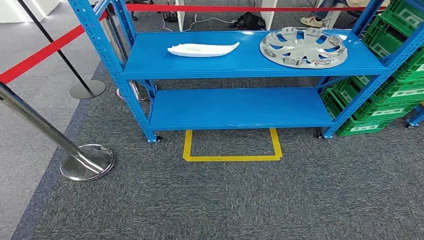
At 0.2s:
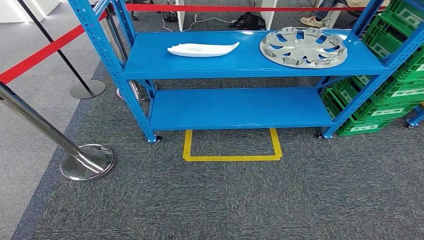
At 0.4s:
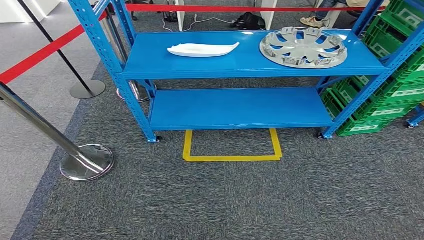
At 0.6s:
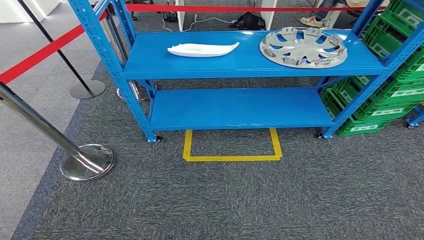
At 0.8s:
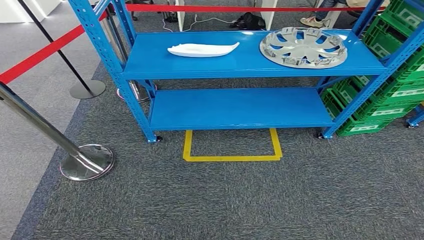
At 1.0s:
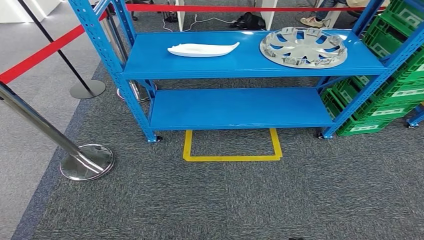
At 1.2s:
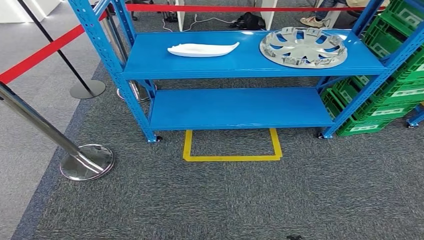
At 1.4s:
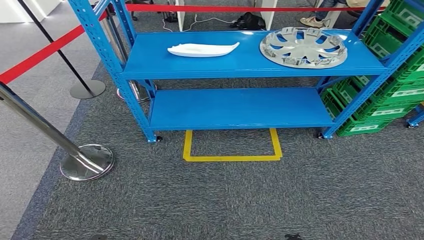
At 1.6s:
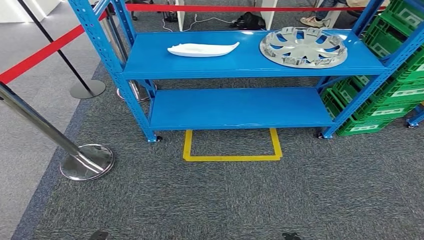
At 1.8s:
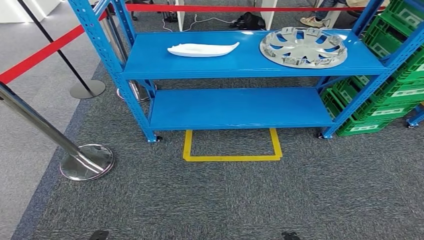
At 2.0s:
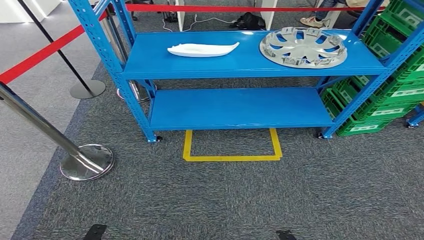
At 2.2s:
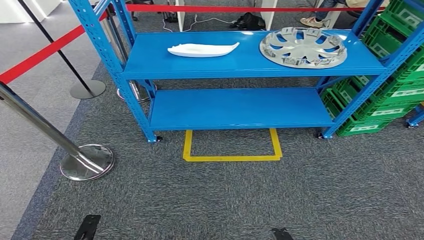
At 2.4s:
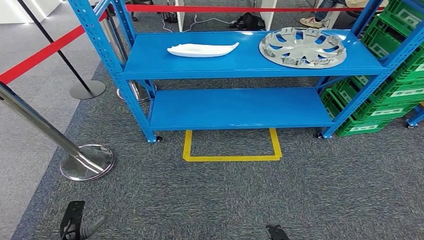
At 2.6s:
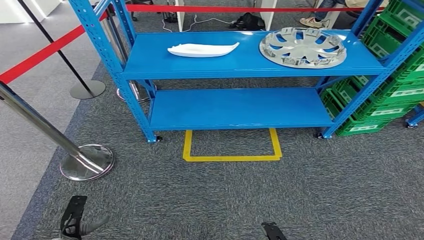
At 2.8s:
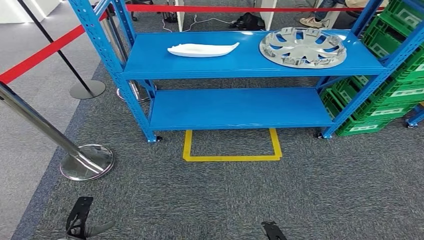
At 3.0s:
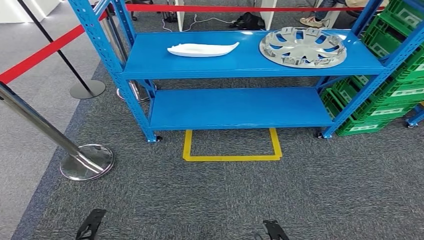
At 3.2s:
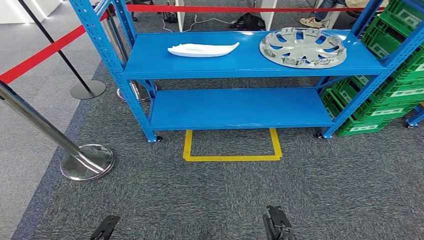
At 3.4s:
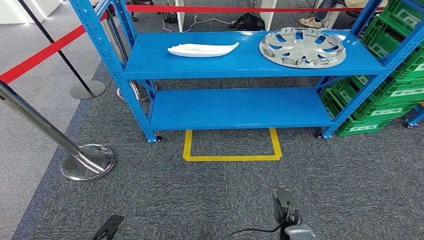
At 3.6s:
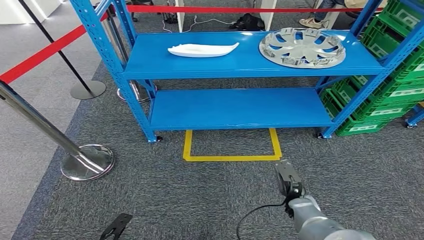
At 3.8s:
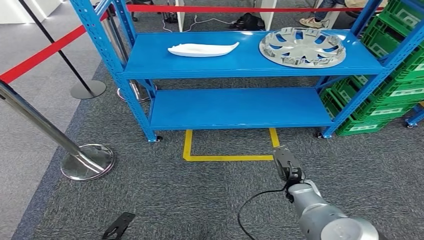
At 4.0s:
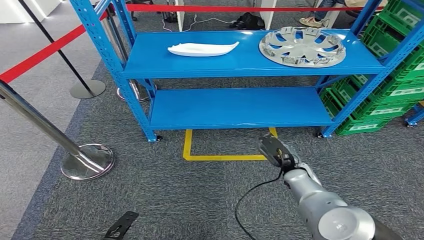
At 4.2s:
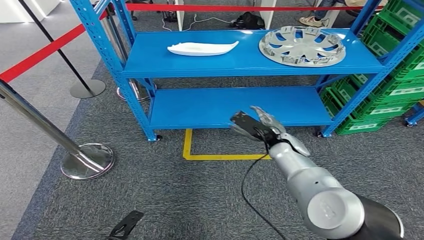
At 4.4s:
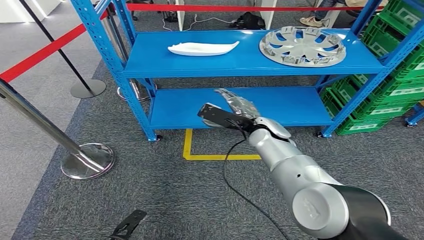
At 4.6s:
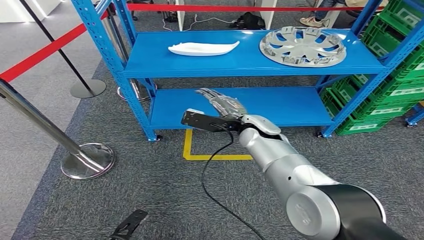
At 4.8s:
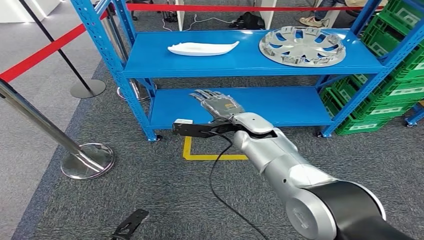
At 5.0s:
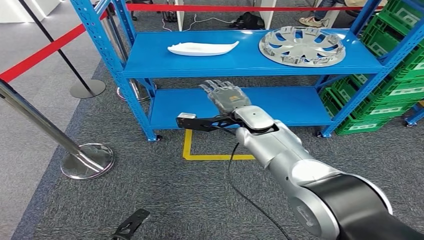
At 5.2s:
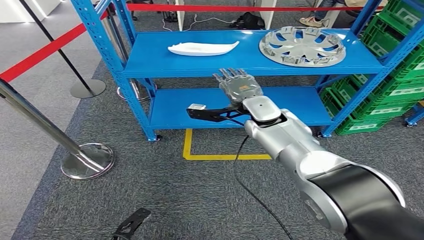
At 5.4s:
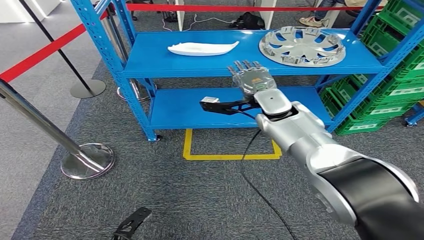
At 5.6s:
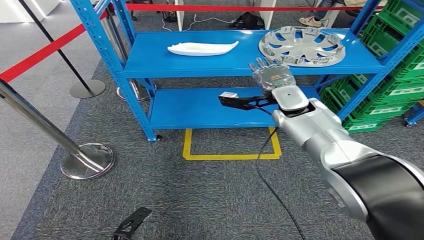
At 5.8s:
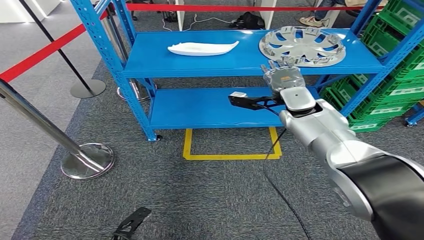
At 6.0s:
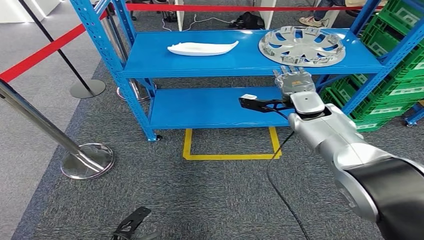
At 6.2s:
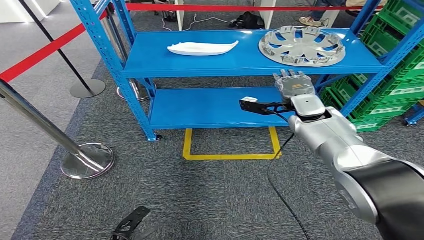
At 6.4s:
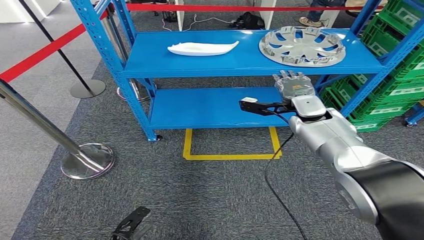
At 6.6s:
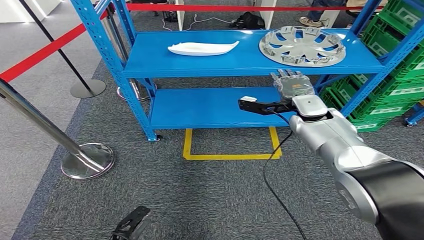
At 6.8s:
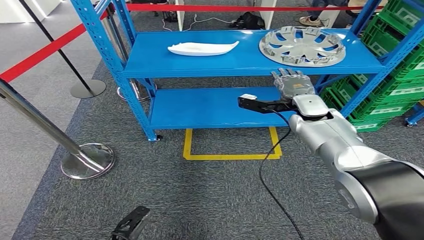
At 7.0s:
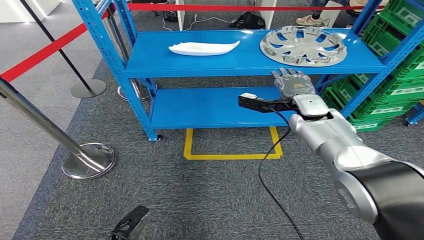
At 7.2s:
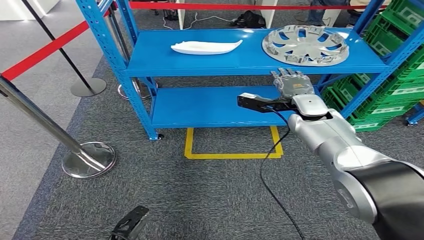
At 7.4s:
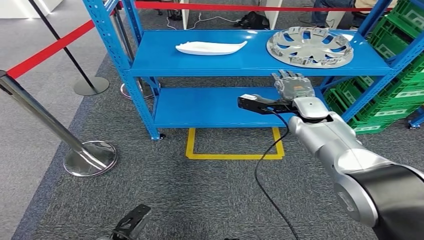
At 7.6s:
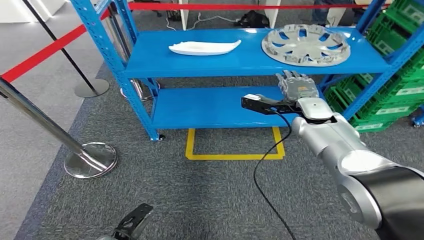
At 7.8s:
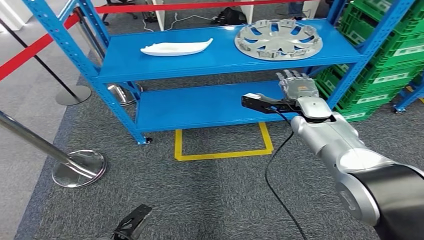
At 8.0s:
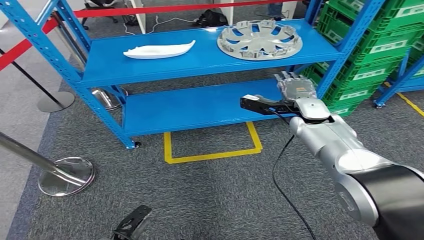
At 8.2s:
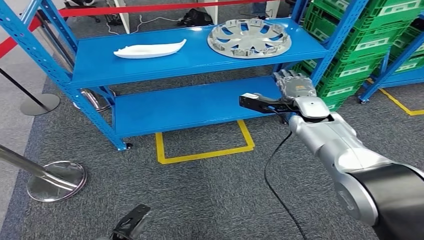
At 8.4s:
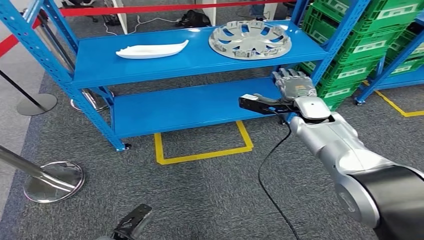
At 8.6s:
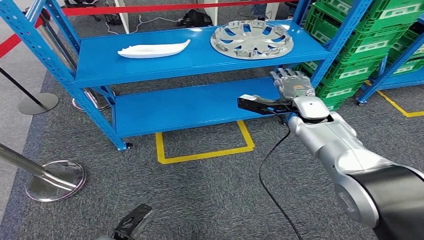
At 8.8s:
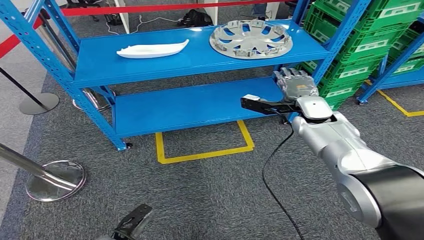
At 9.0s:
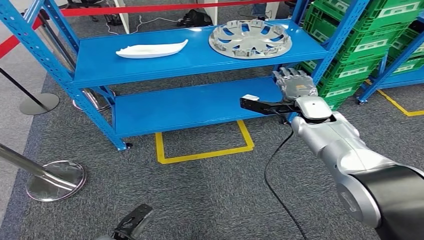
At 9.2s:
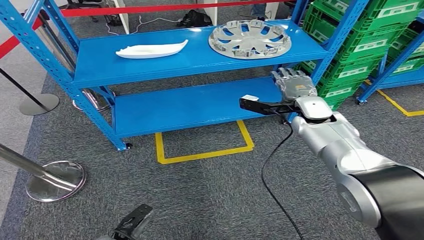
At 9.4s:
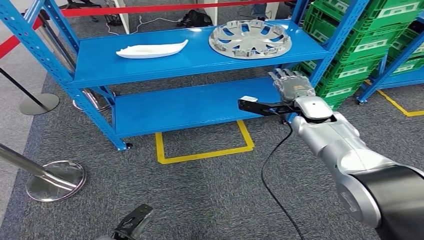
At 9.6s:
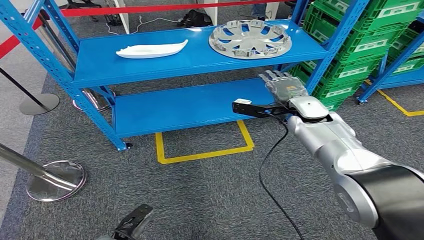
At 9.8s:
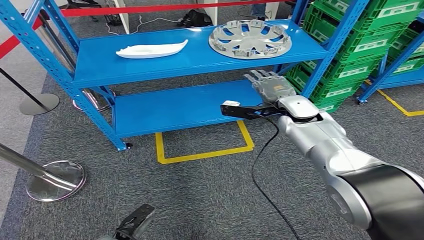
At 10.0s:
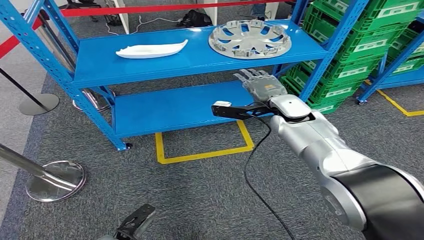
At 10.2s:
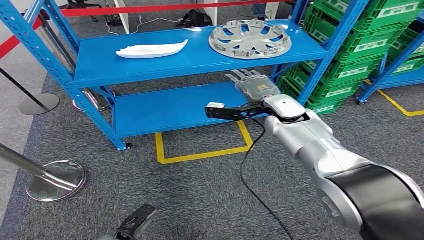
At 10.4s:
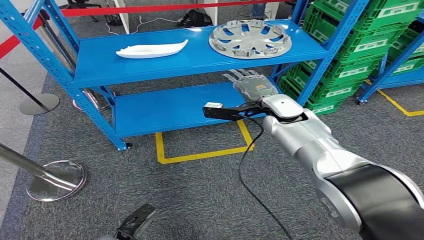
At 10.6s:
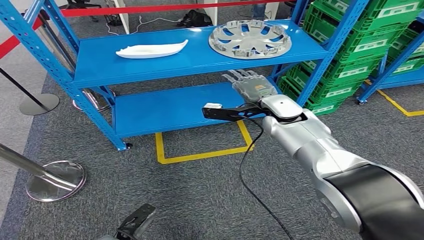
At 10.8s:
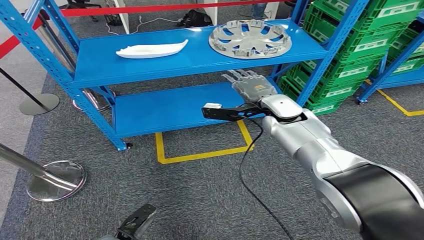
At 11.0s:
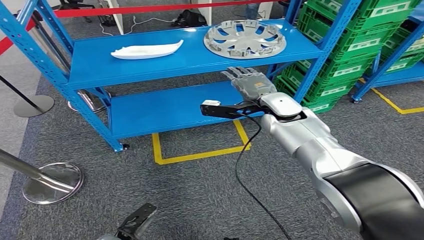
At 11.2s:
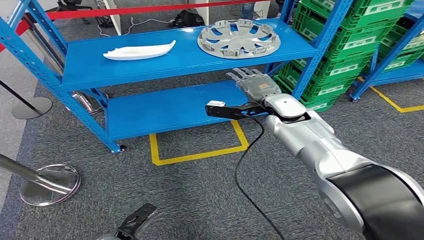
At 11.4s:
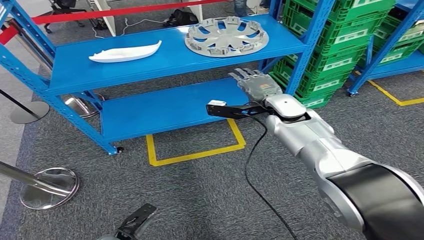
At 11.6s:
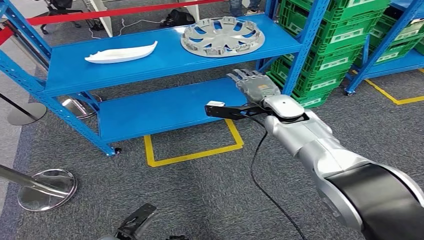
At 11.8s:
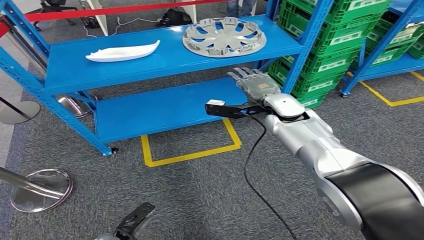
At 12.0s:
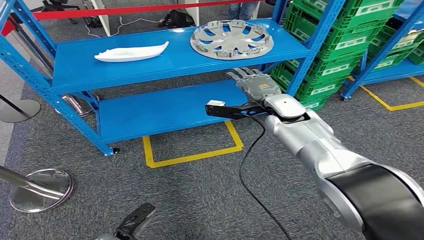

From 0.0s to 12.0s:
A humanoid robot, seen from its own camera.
From 1.6s to 3.0s: The left hand shifts approximately 5 cm forward, while the right hand travels to the left by approximately 5 cm.
From 3.0s to 4.4s: The right hand moves forward and upward, about 40 cm; the left hand travels to the right by roughly 5 cm.
From 4.4s to 6.0s: The right hand shifts approximately 10 cm to the right and upward.
From 9.0s to 10.4s: The right hand heads to the left, covering some 5 cm.

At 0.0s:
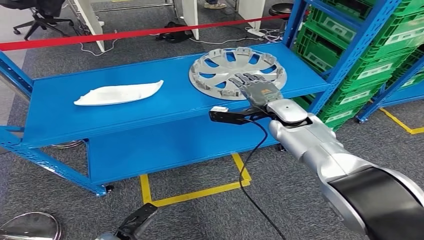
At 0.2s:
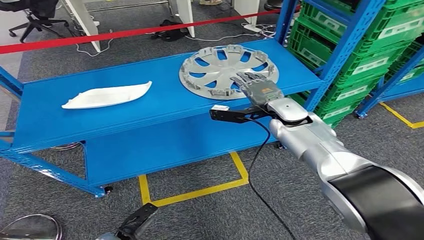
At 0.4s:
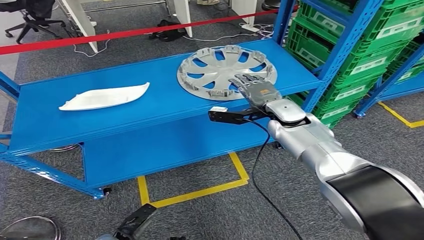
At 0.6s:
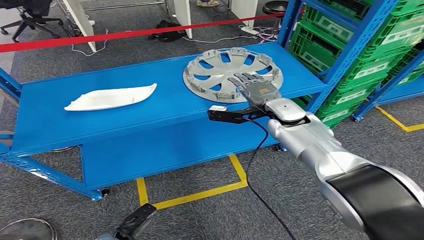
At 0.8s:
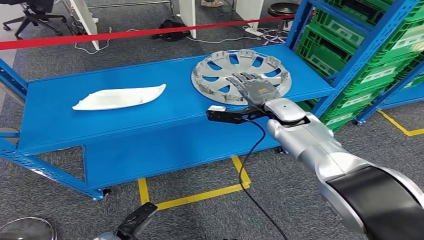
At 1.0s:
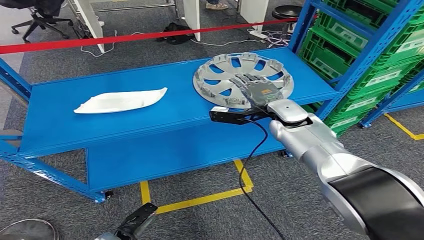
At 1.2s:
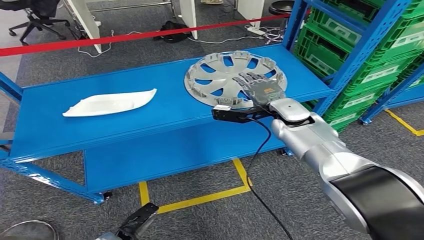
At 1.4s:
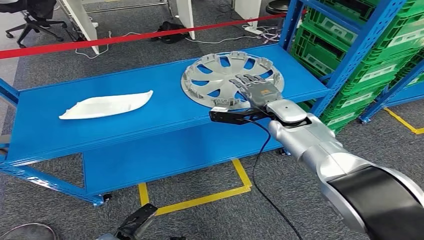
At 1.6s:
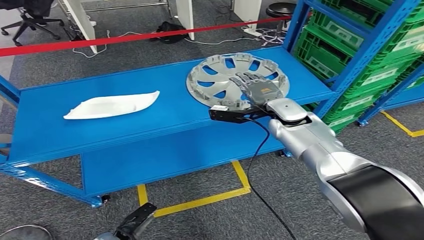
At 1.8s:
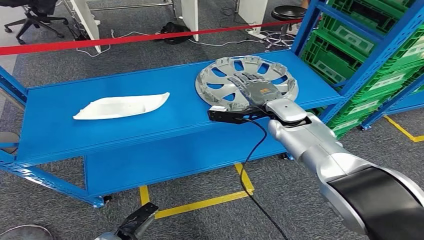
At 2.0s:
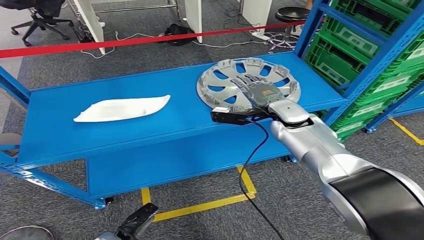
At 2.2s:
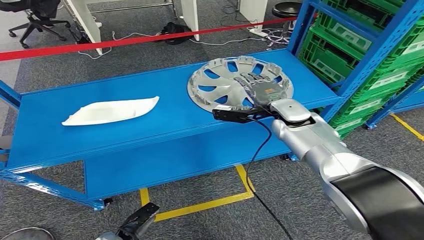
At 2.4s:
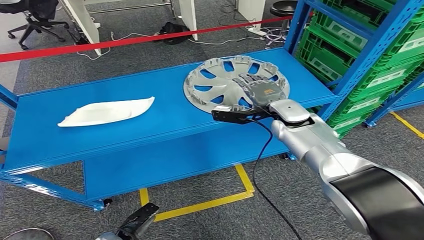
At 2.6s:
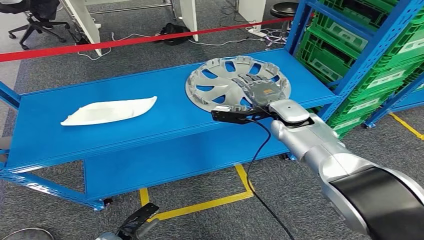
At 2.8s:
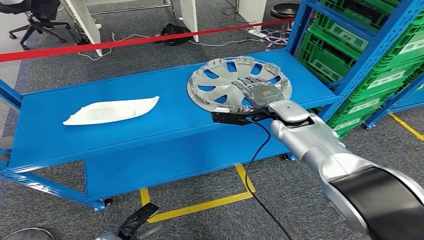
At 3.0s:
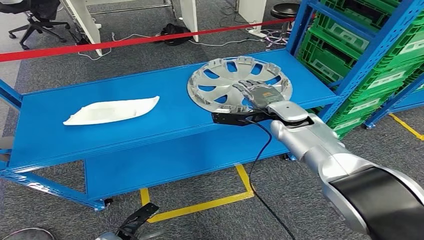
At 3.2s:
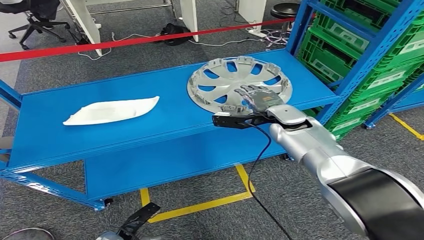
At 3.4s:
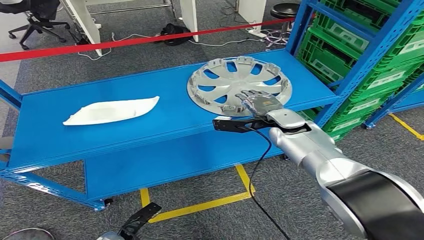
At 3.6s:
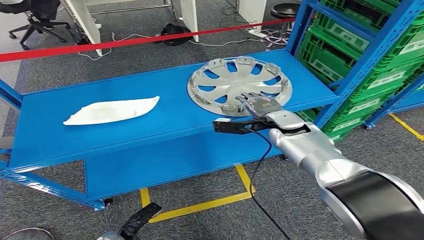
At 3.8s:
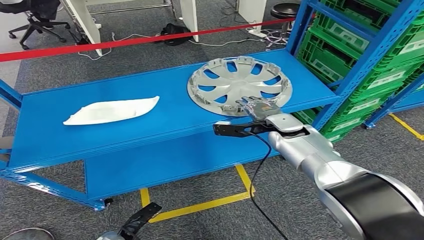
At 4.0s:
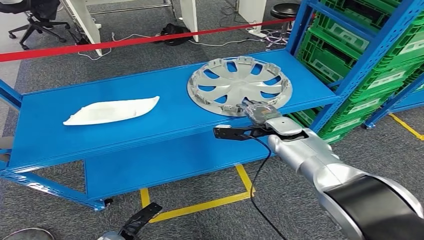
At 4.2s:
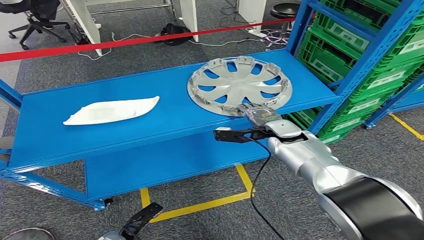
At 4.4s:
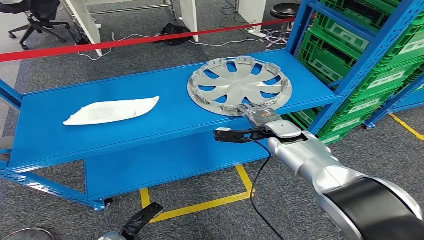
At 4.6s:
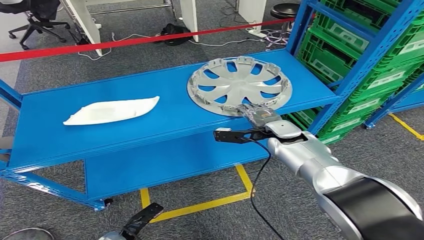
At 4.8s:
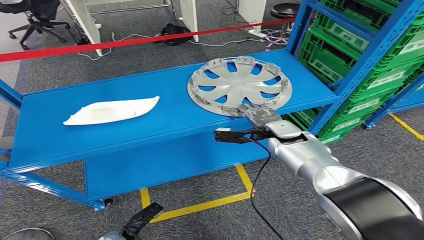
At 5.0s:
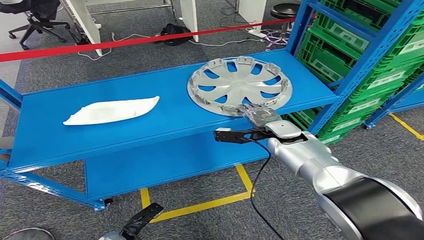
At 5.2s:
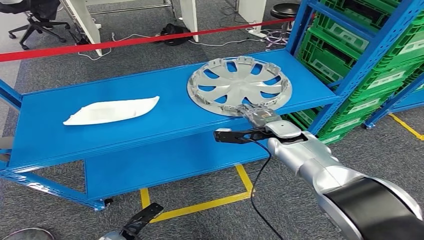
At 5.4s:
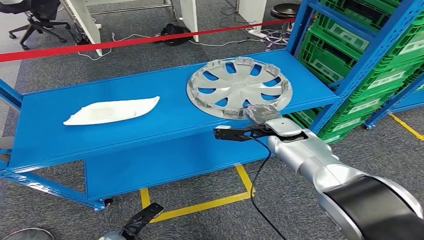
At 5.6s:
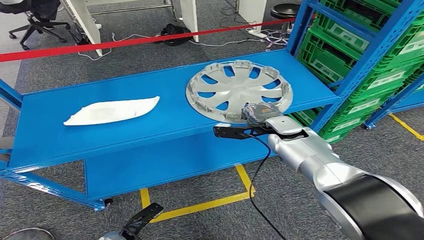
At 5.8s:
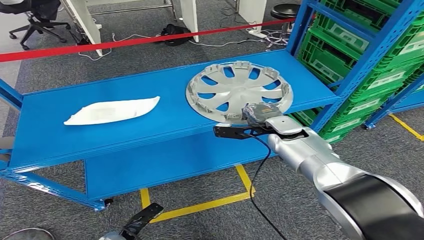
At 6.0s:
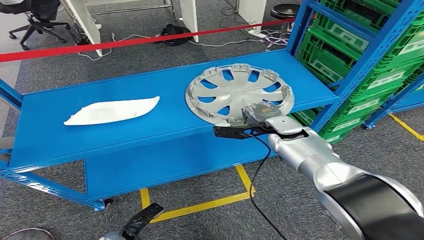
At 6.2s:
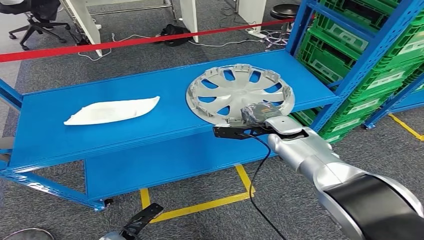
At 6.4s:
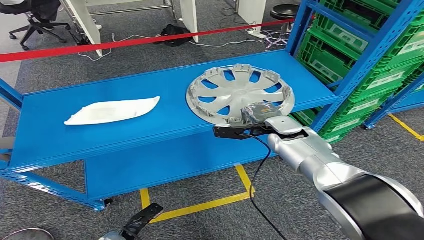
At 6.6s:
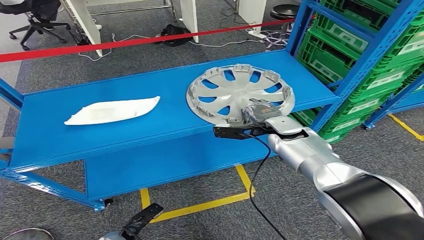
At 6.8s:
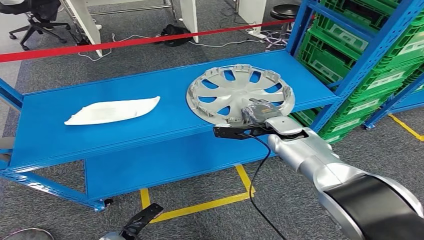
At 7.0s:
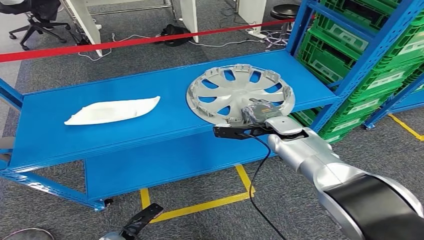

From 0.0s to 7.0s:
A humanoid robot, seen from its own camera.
From 2.8s to 4.2s: The right hand is displaced downward by approximately 5 cm.
From 4.2s to 7.0s: Both hands stay about where they are.
